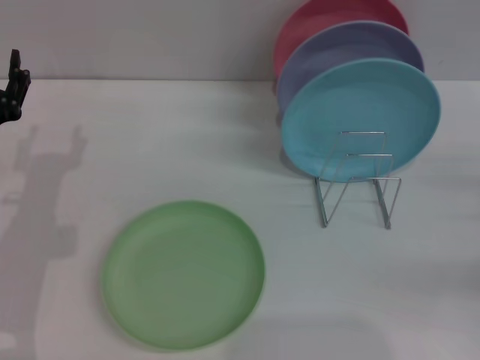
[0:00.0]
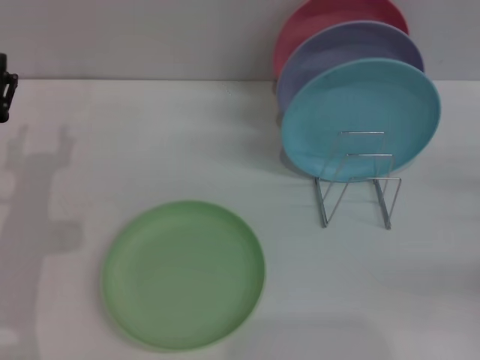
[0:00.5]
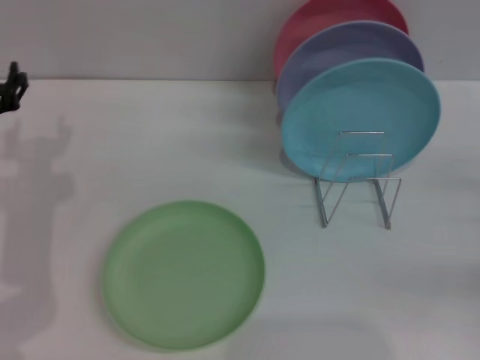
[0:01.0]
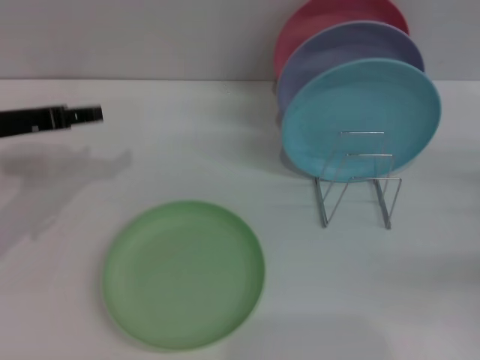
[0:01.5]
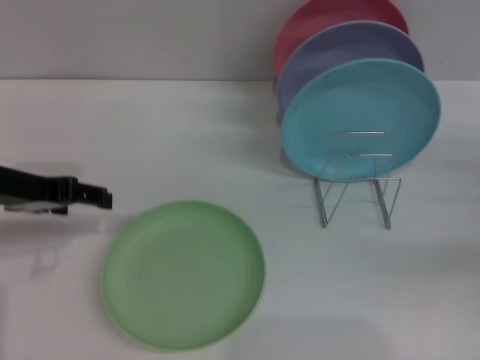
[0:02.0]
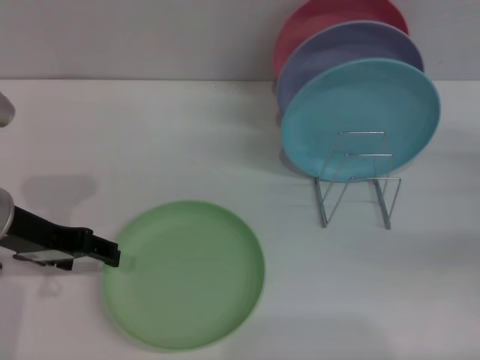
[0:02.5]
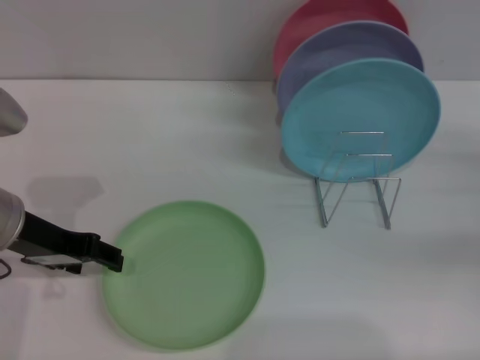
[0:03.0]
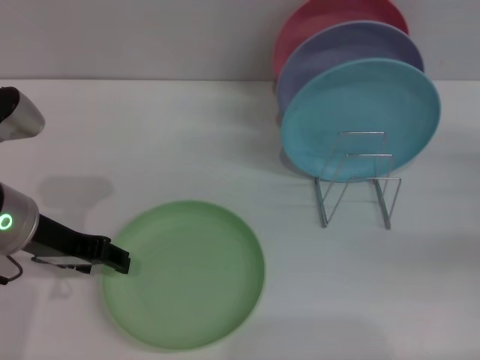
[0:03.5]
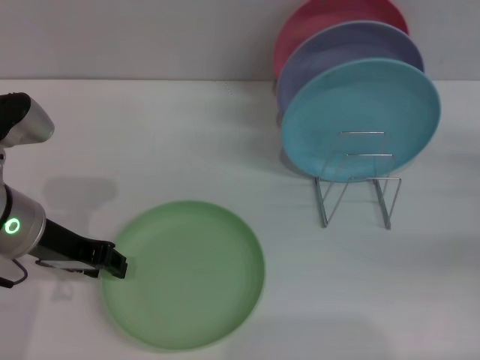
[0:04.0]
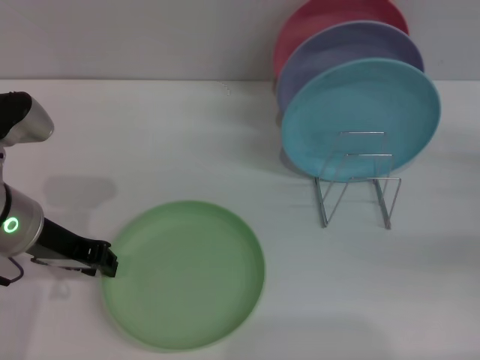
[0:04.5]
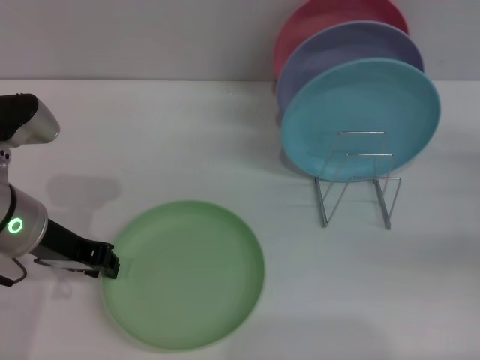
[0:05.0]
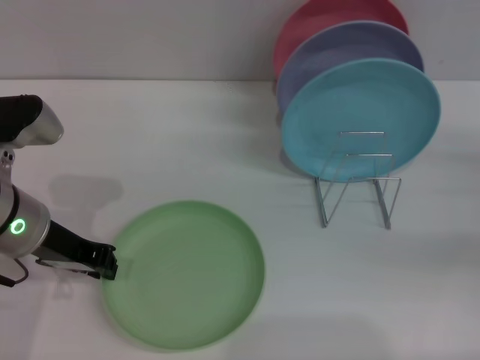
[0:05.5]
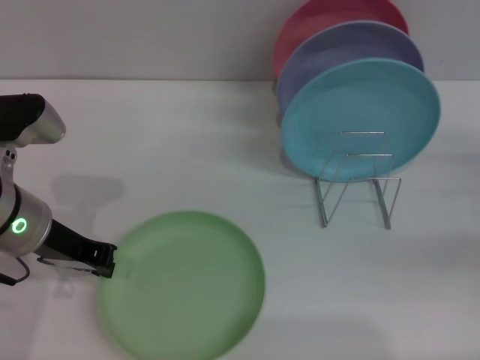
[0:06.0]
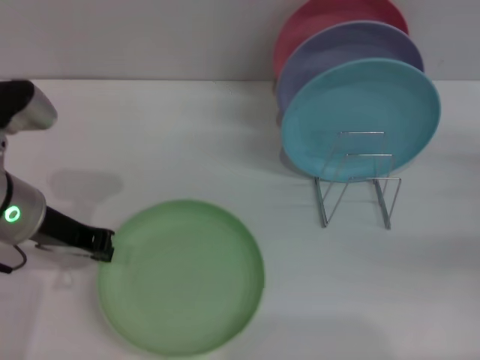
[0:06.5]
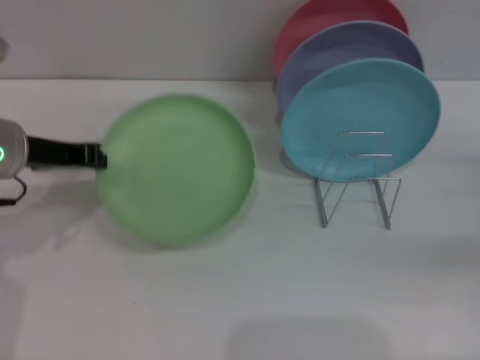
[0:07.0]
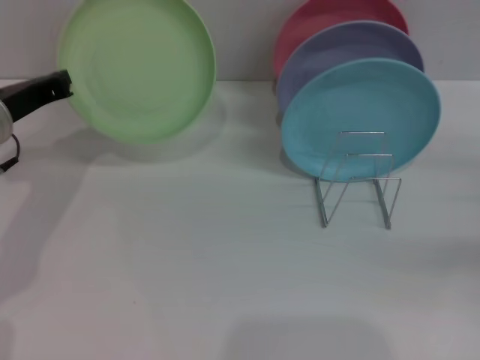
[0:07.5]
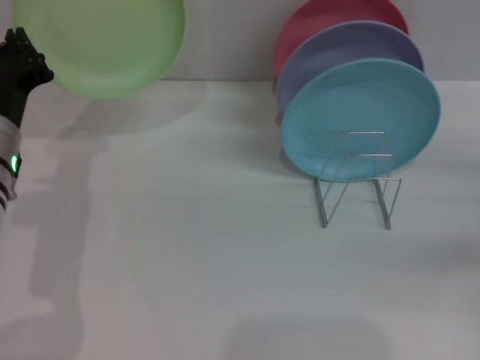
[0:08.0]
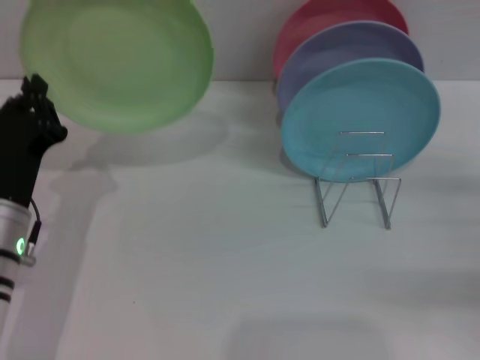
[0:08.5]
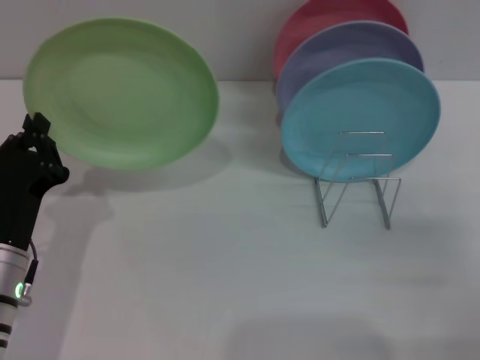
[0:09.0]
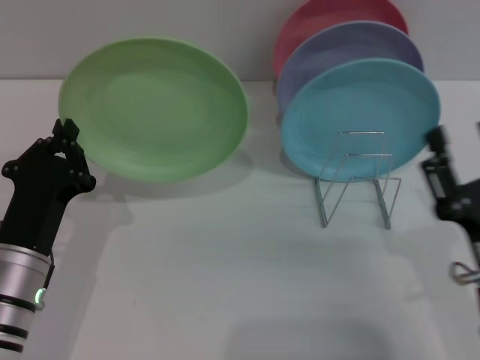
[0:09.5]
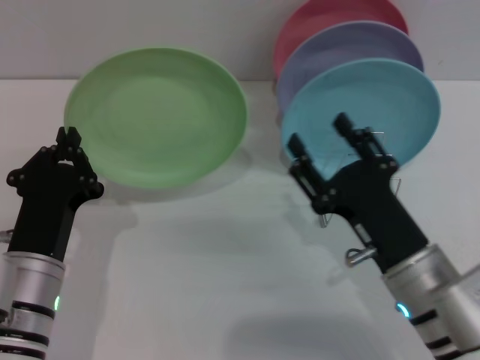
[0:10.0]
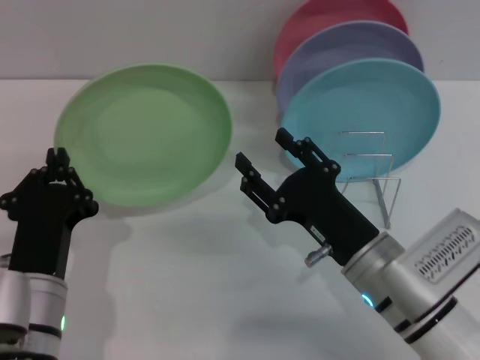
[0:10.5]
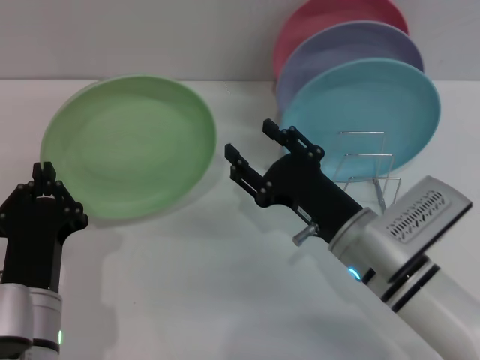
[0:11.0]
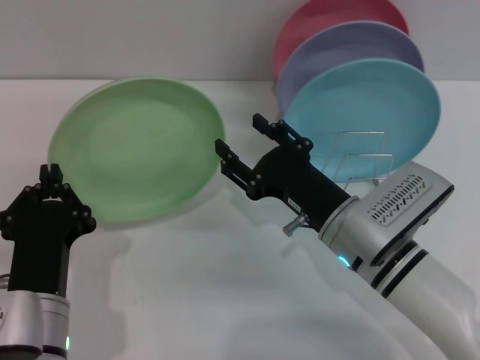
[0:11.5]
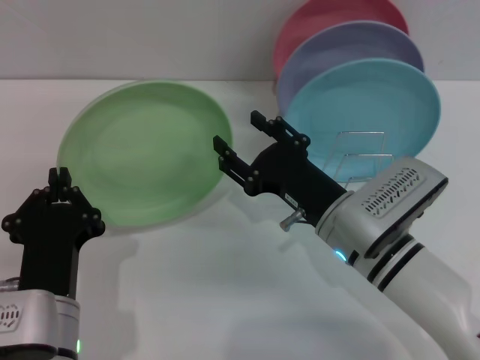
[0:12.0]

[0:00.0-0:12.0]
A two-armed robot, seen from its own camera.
Task of the whole recording: Grip the plate with one hand, pass it to the other, then set it on the shelf.
Step, 0:00.0 to 0:07.5: Pick up the plate with the left gripper.
0:00.0 to 0:02.0: The left gripper heads upward, covering about 10 cm.
0:02.0 to 0:04.0: The left gripper shifts by about 5 cm.
0:04.0 to 0:06.0: The left gripper closes up.
0:08.0 to 0:10.0: The left gripper travels backward and downward by roughly 15 cm. Meanwhile the right gripper is displaced to the left by some 25 cm.
0:10.0 to 0:12.0: The left gripper changes place by roughly 5 cm. Meanwhile the right gripper moves forward, approximately 5 cm.

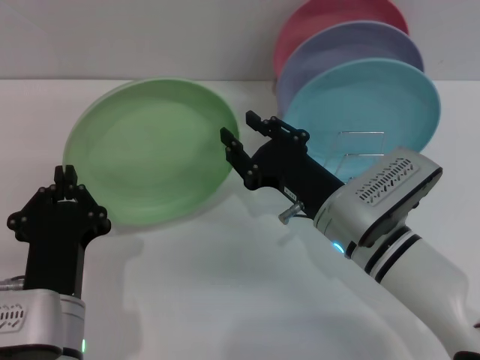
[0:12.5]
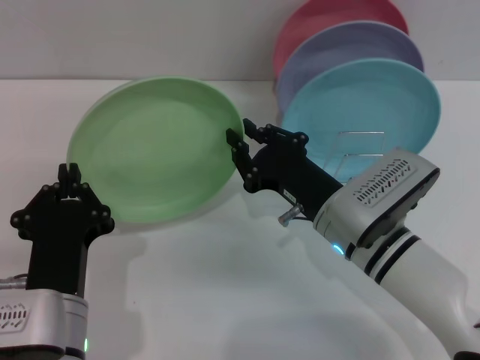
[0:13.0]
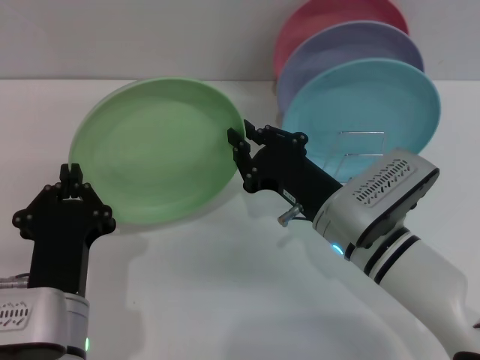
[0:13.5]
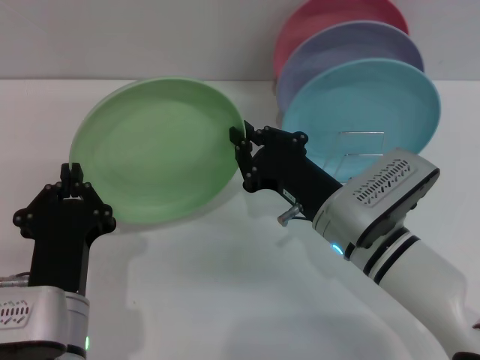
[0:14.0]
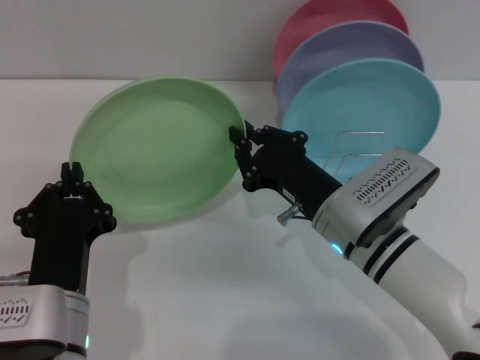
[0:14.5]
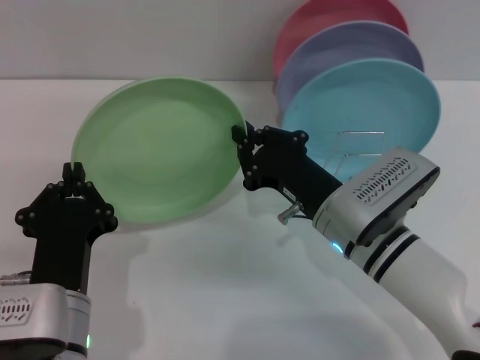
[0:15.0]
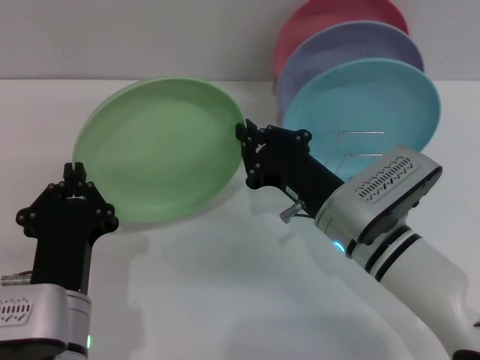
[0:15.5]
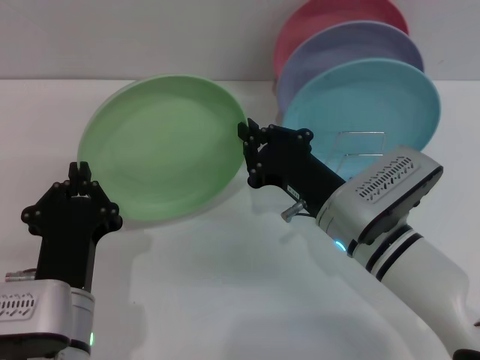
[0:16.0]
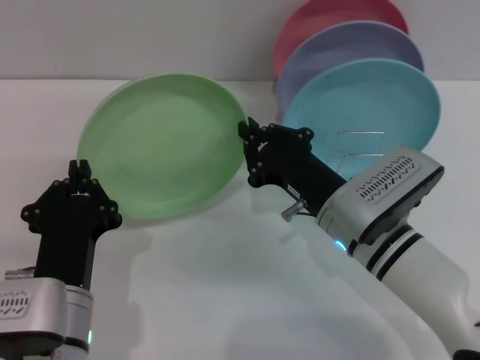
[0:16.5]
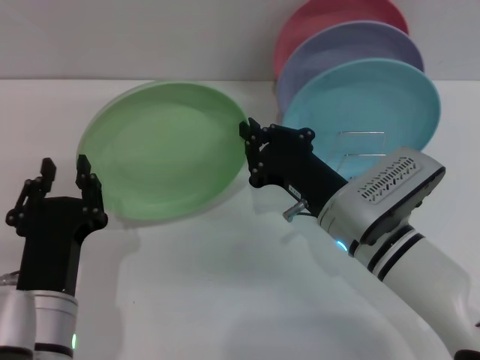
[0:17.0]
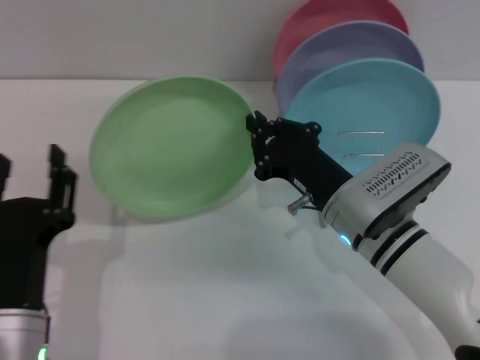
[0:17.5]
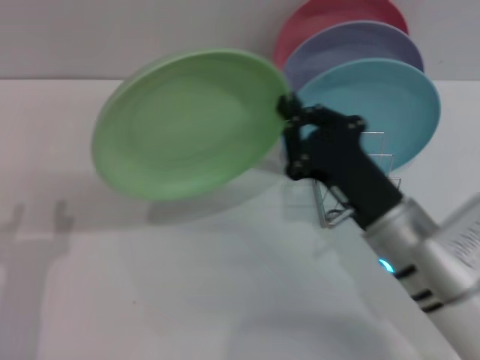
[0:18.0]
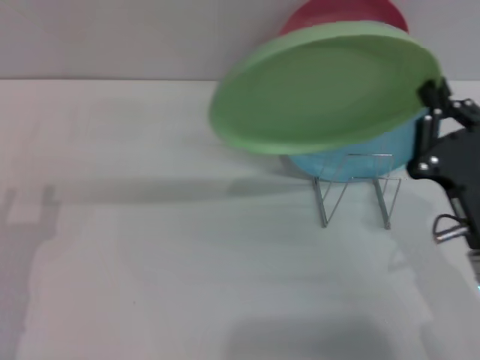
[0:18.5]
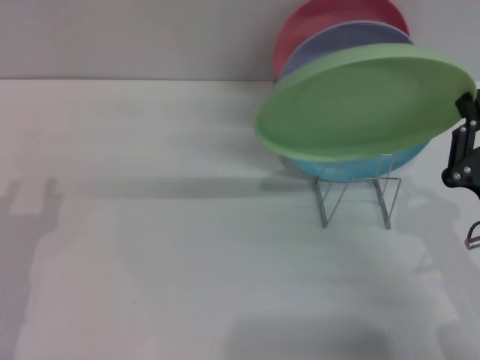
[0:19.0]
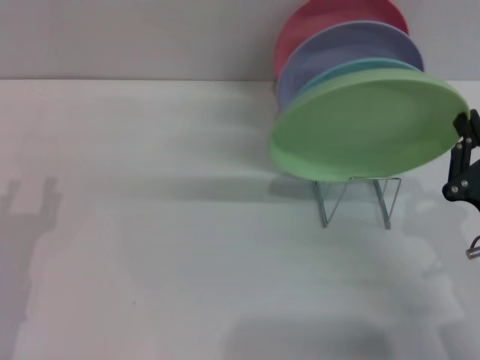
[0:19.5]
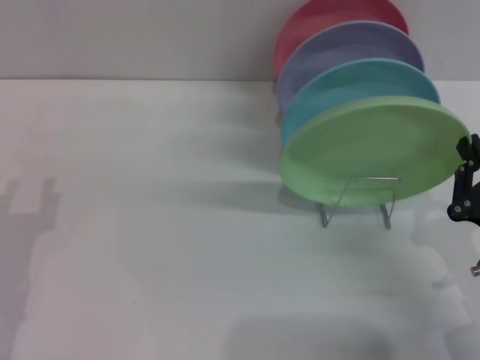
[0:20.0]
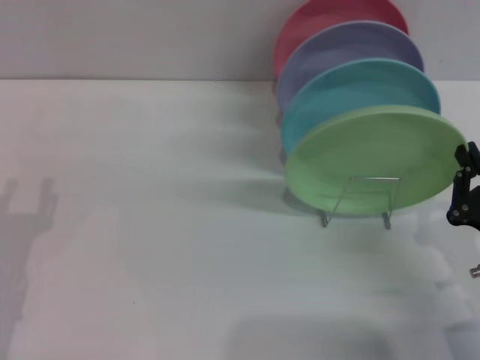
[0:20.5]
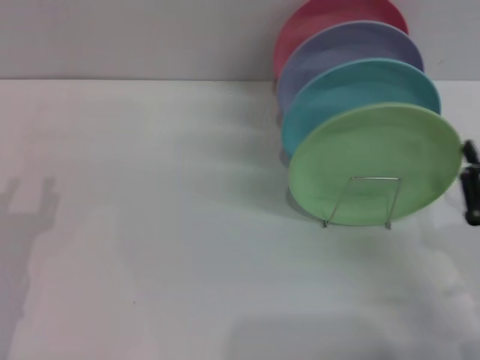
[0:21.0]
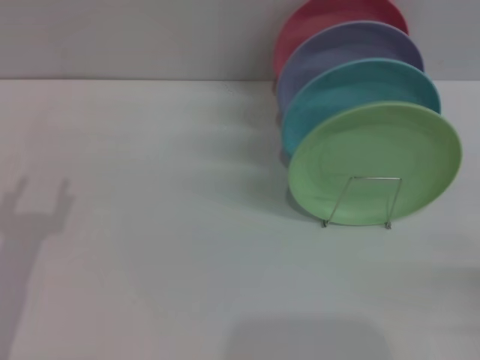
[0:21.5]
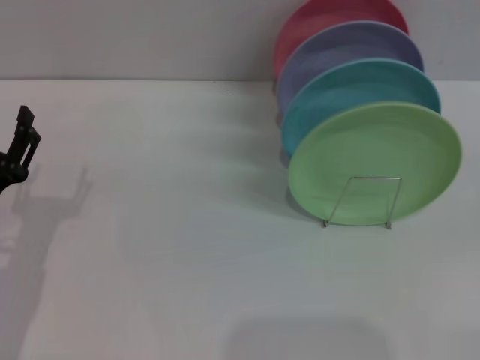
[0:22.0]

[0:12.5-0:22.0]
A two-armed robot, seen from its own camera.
Task of the whole recording: Grip the plate with one hand, pass it to the other, then set it on the shelf.
Step, 0:12.5 to 0:17.5: Pass the plate from the left gripper to the right gripper.
Step, 0:18.0 to 0:21.0: Place the plate on the shelf with the right gripper.
0:12.5 to 0:14.5: The right gripper closes up.
0:14.5 to 0:16.5: The two grippers keep their place.
0:16.5 to 0:18.0: The right gripper ends up about 5 cm from where it was. The left gripper goes approximately 10 cm to the left, and opens its fingers.
0:18.0 to 0:20.0: The right gripper travels to the right and backward by roughly 15 cm. The left gripper shifts by approximately 5 cm.
0:20.0 to 0:22.0: The right gripper travels to the right by some 15 cm, and opens up.
